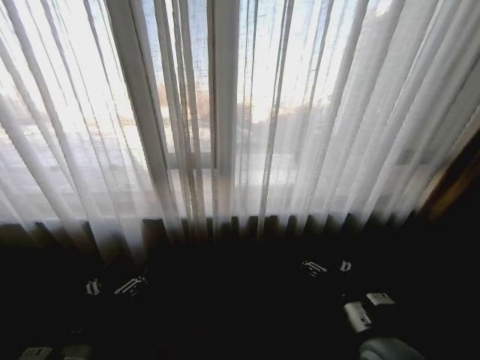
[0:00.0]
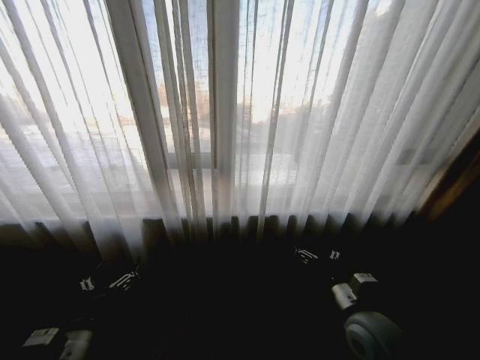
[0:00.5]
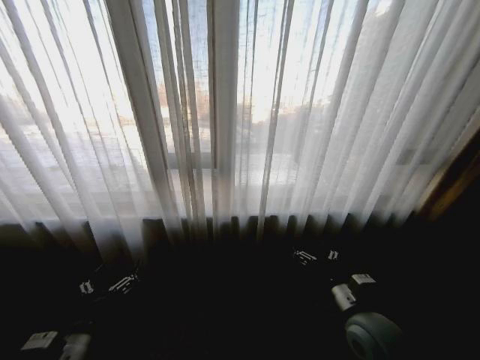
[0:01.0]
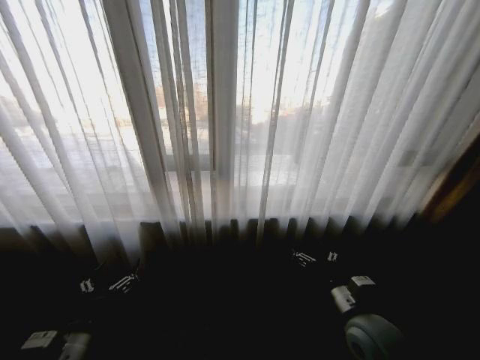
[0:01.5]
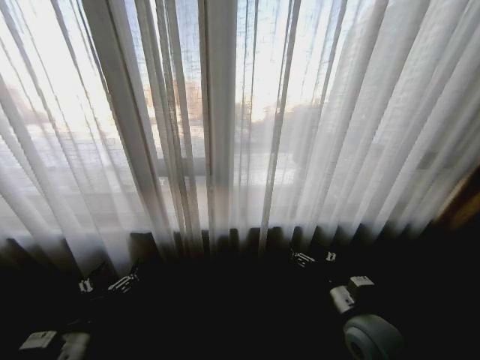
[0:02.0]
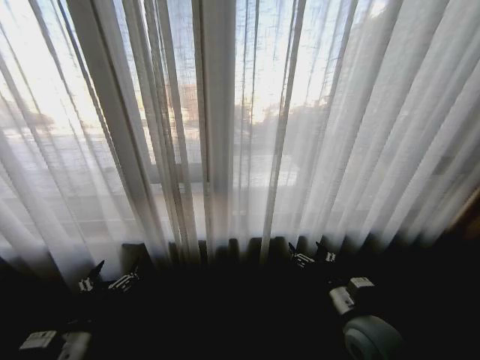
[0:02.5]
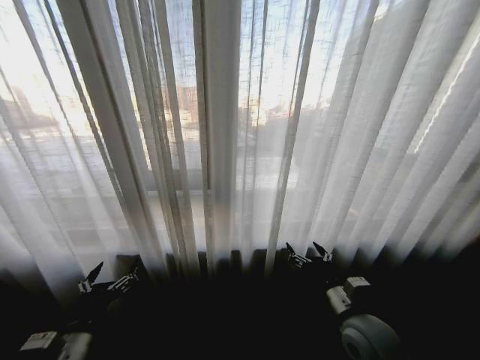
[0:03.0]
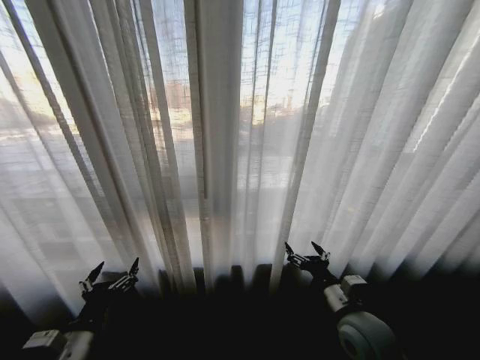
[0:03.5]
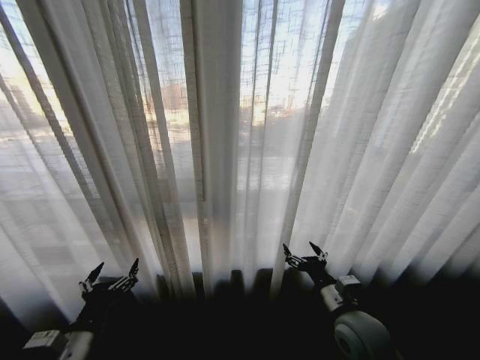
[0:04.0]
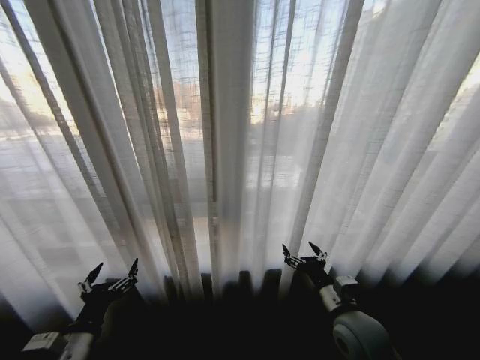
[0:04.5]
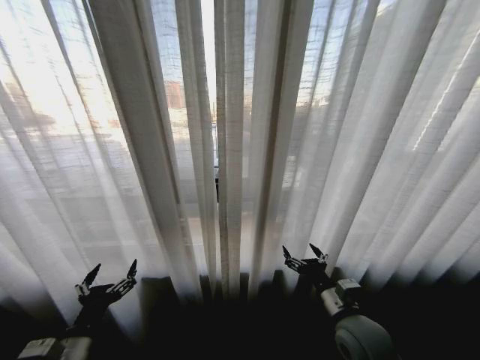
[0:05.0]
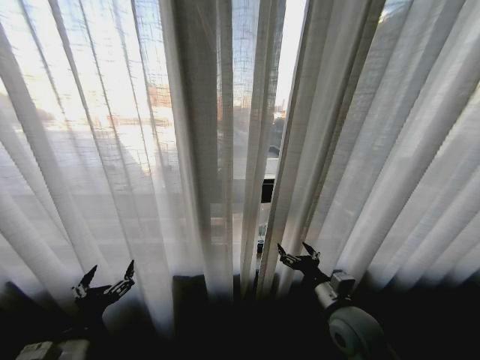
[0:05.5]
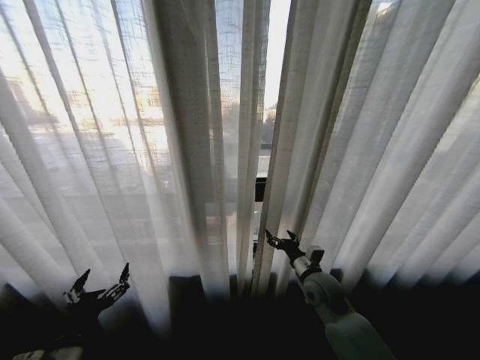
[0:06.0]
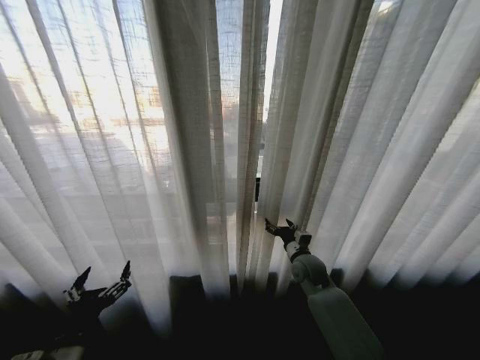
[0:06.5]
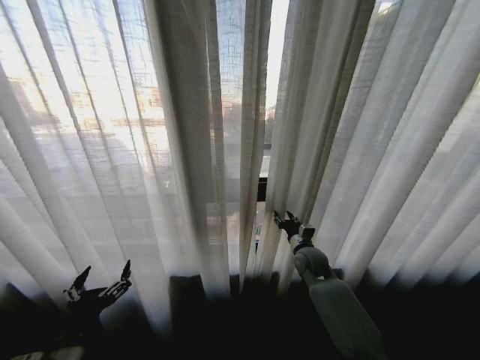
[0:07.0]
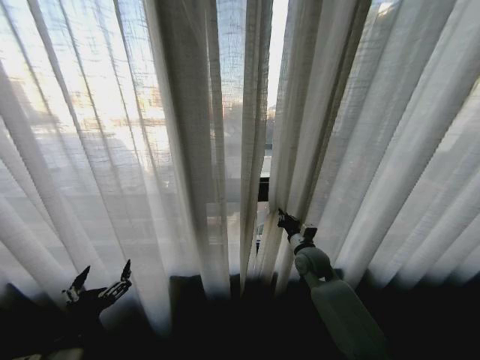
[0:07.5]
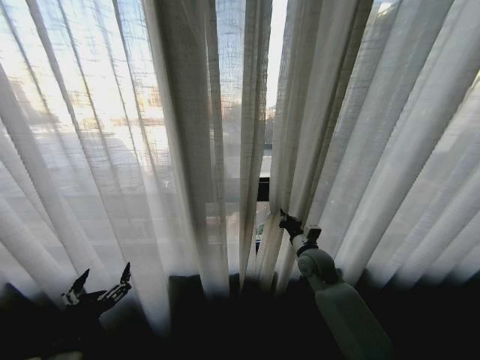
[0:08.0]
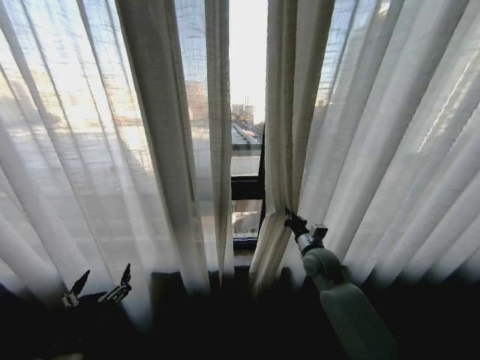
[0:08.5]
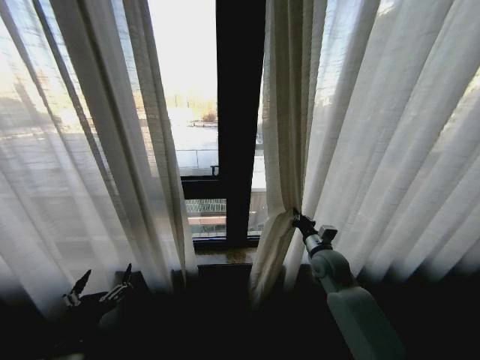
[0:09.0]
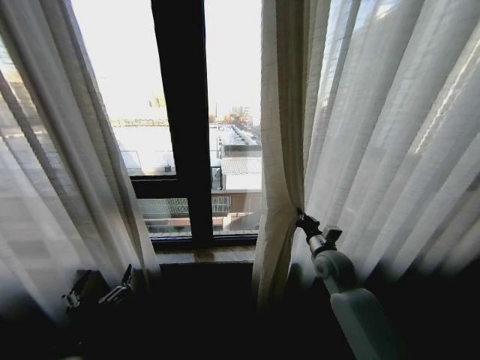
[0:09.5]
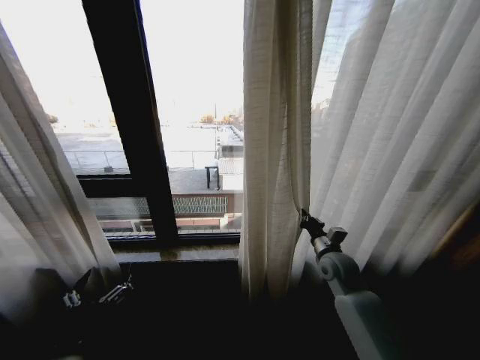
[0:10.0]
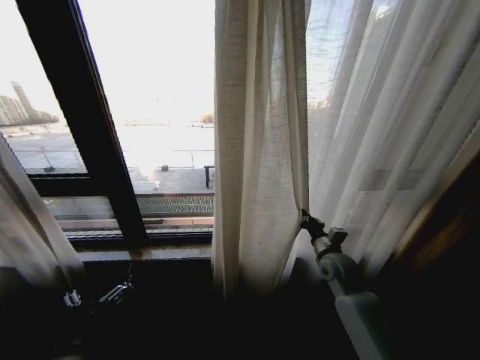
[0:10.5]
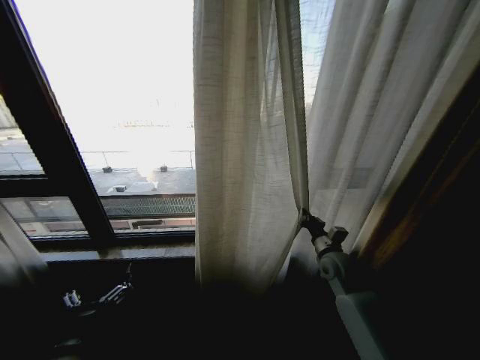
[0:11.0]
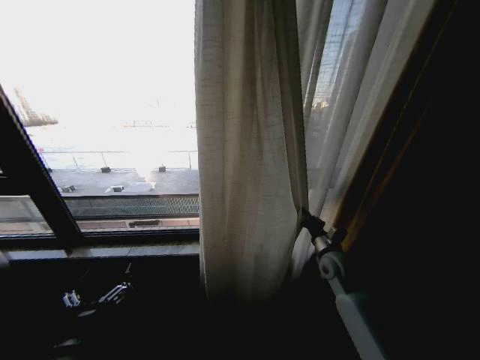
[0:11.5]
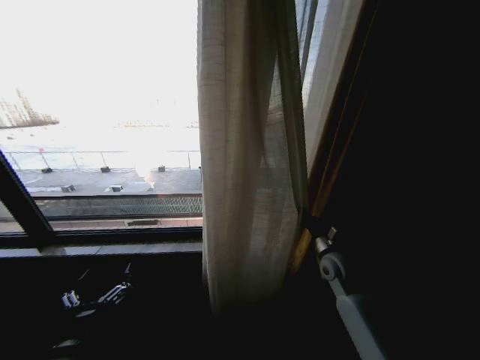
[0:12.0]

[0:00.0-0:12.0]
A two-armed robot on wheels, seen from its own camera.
Task of the whole recording: Open the curtains by pulling them apart, changing their state from closed to fully open.
0:04.0 to 0:06.0: The right gripper heads forward, covering approximately 10 cm.
0:06.0 to 0:08.0: The right gripper is displaced forward by some 10 cm, and closes its fingers.
0:08.0 to 0:10.0: The right gripper heads to the right, covering about 5 cm.

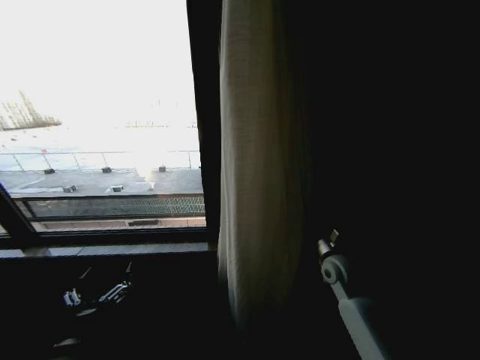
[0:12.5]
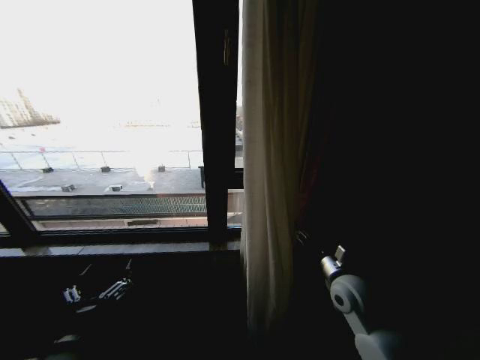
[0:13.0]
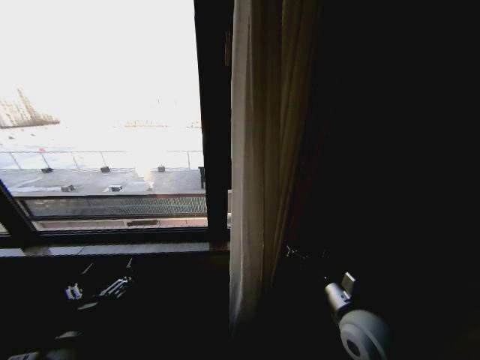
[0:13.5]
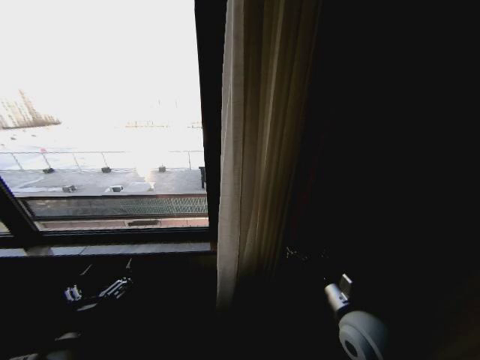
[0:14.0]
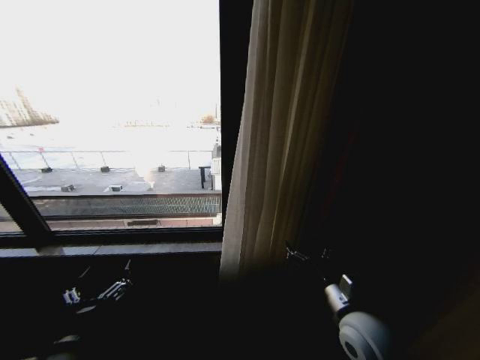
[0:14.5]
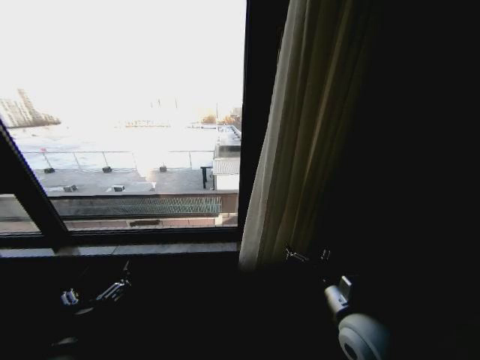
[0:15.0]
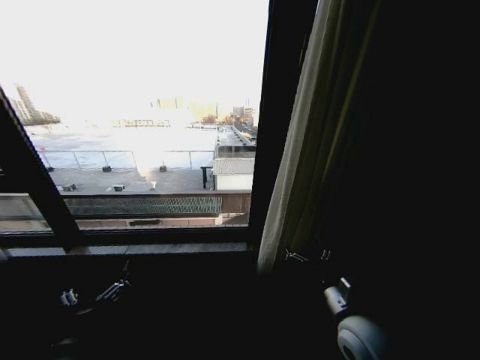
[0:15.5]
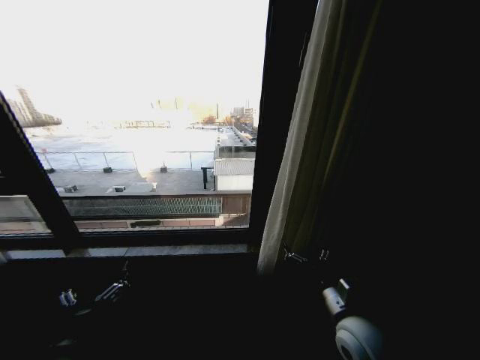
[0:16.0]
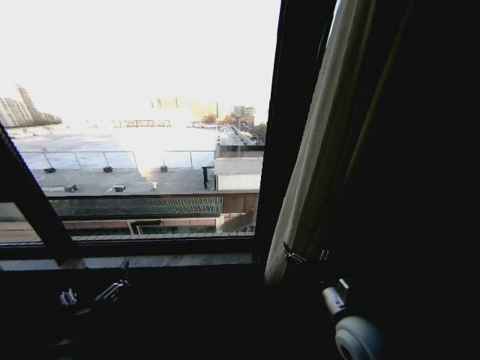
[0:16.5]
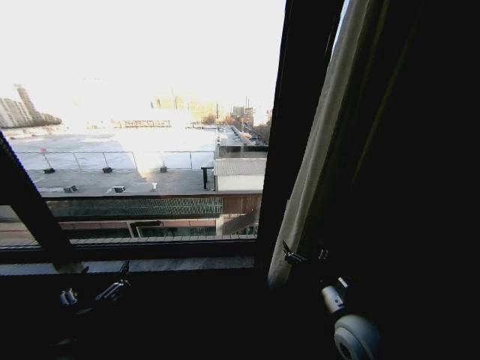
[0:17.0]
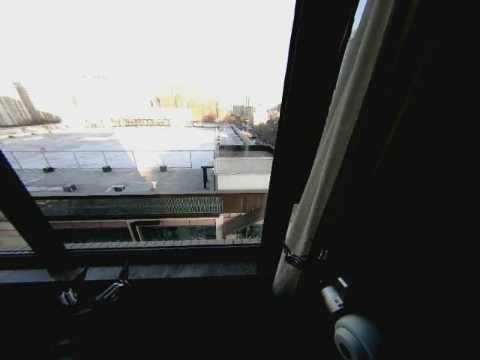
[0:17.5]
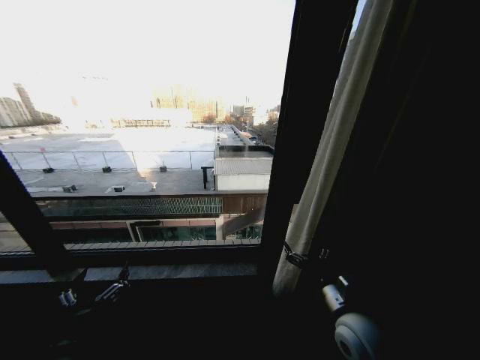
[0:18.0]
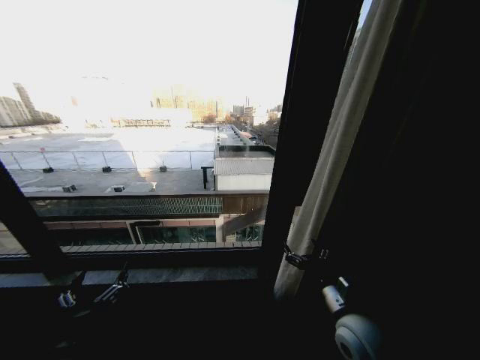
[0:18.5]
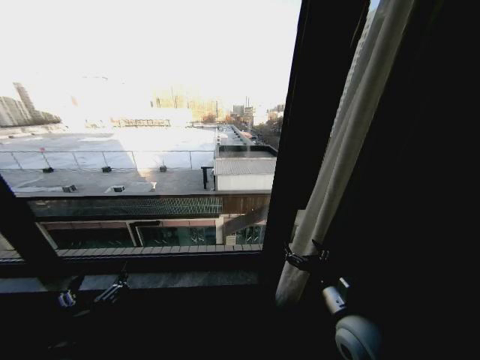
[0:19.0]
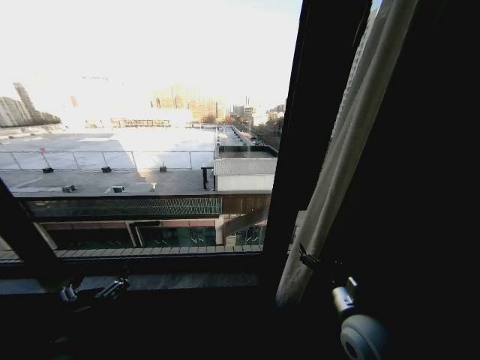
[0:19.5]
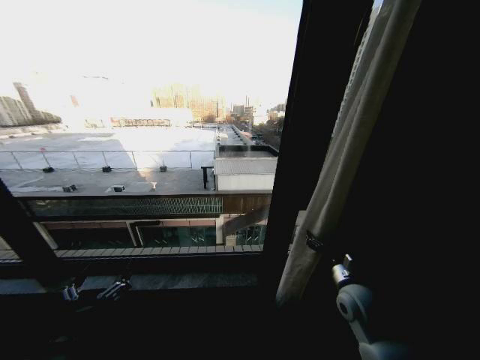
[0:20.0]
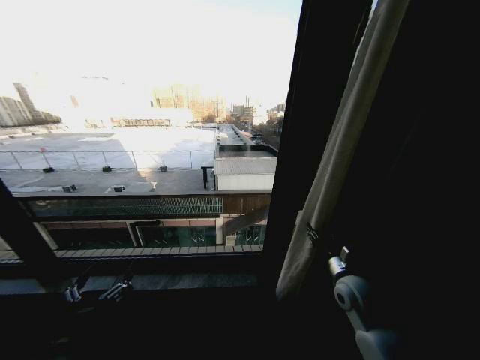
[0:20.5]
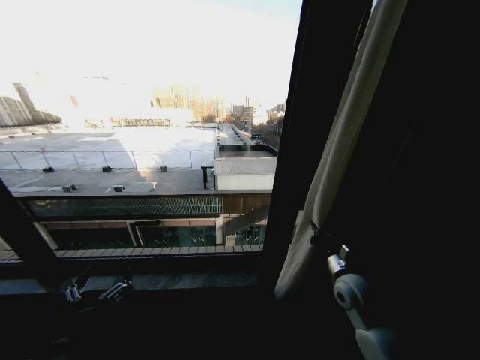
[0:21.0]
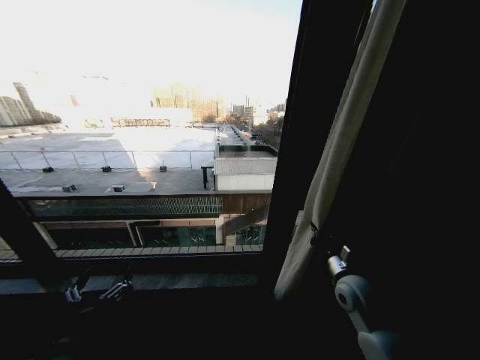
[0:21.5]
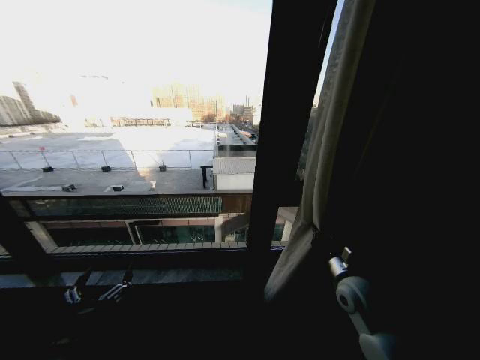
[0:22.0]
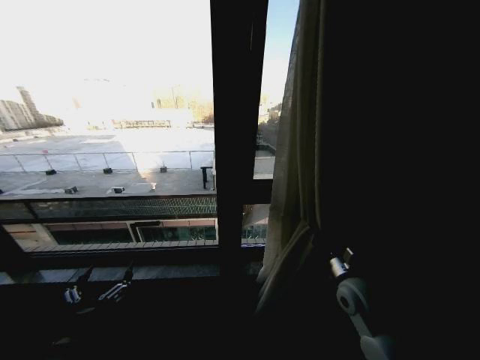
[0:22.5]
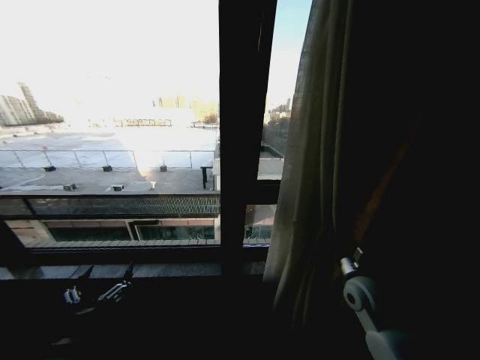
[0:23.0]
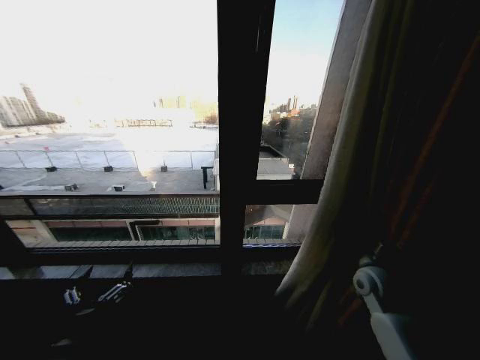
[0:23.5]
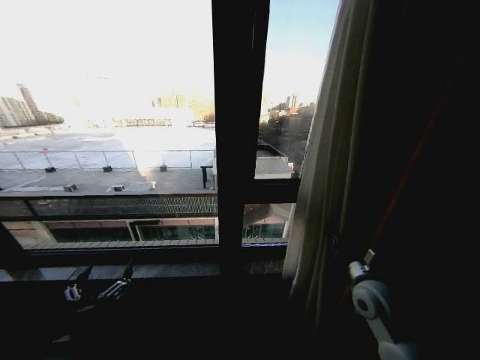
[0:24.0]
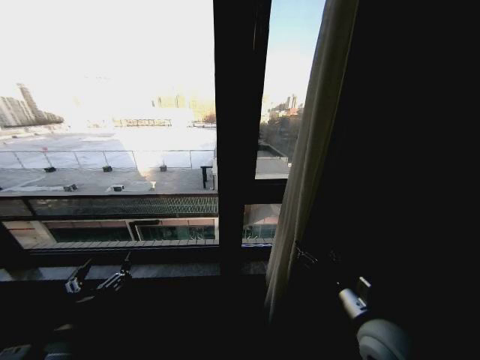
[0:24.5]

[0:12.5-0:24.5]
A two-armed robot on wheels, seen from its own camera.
Task of the whole recording: Open the curtains by pulling them apart, changing their state from closed to fully open.
0:12.5 to 0:14.5: The right gripper heads backward, covering about 15 cm, and opens.
0:16.5 to 0:18.5: The two grippers keep their place.
0:18.5 to 0:20.5: The right gripper shifts approximately 10 cm forward and to the right, and closes its fingers.
0:20.5 to 0:22.5: The right gripper closes.
0:22.5 to 0:24.5: The right gripper moves backward, approximately 10 cm, and opens up.

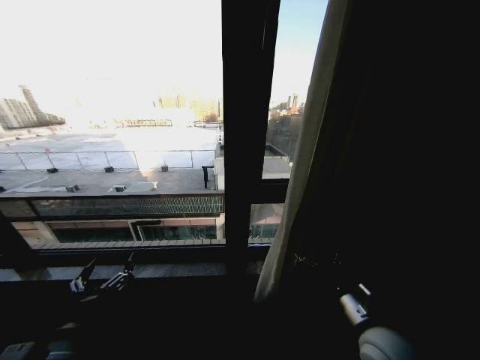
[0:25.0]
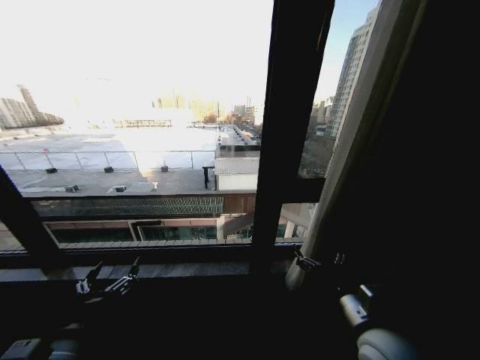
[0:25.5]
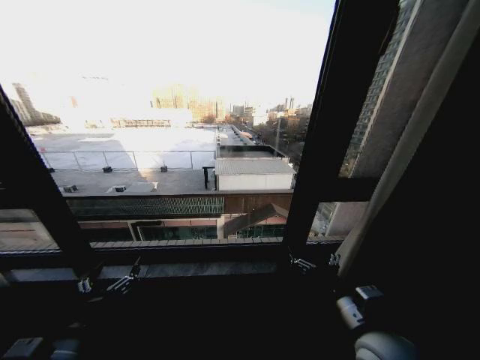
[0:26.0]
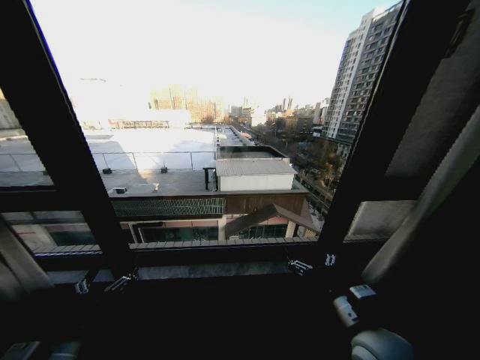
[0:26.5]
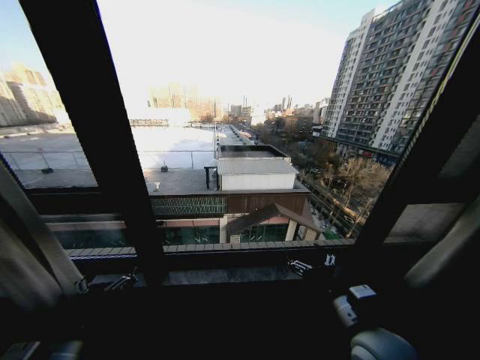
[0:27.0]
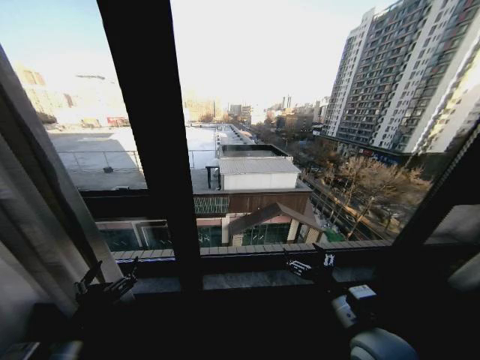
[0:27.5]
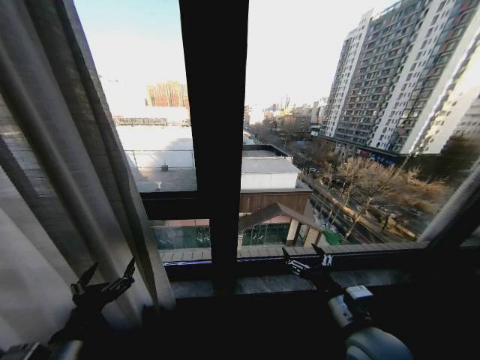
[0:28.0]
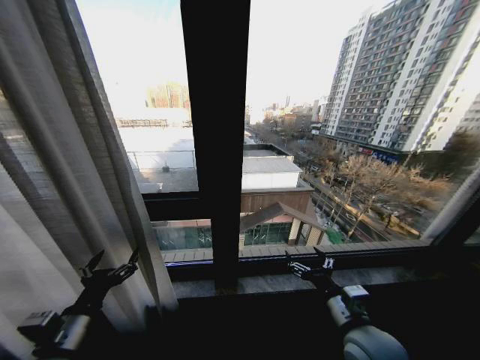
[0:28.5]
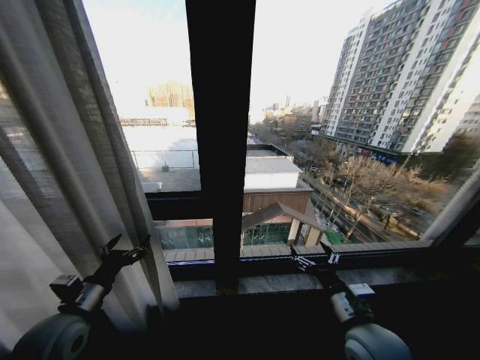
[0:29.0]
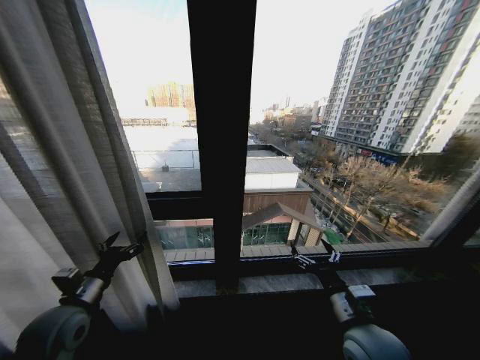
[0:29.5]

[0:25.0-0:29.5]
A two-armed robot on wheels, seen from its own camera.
Task of the whole recording: Open the curtains by pulling them apart, changing their state from closed to fully open.
0:27.0 to 0:29.5: The left gripper shifts approximately 15 cm forward and to the left.
